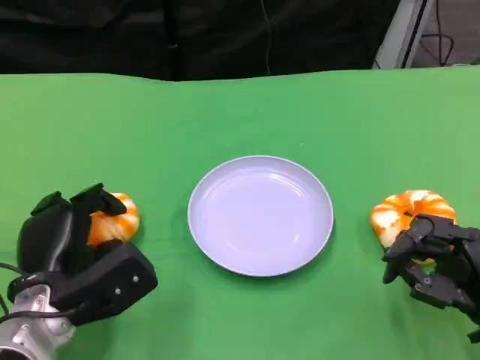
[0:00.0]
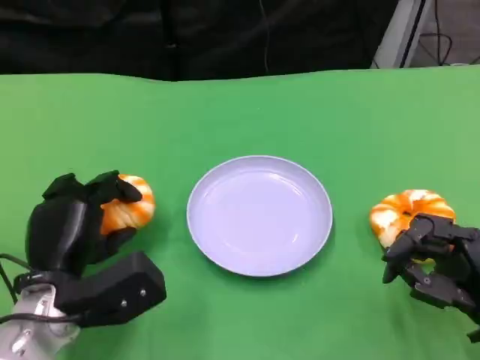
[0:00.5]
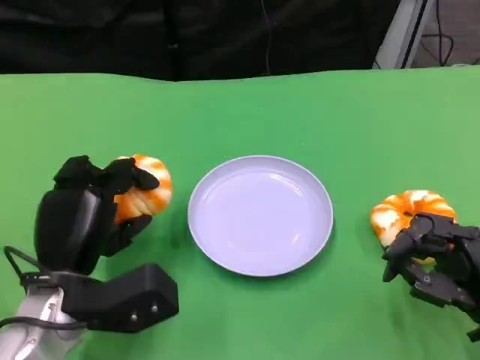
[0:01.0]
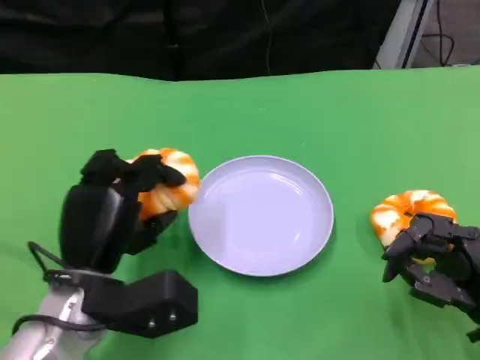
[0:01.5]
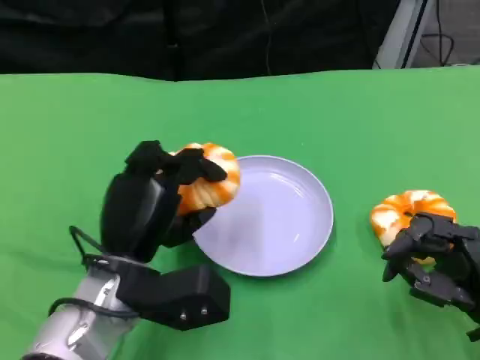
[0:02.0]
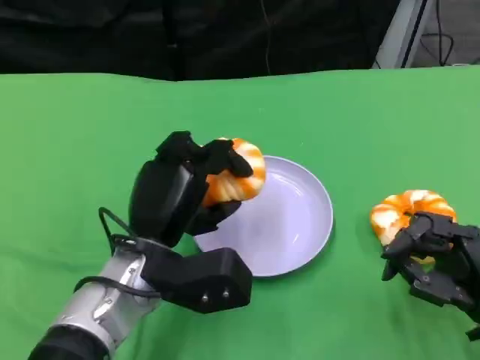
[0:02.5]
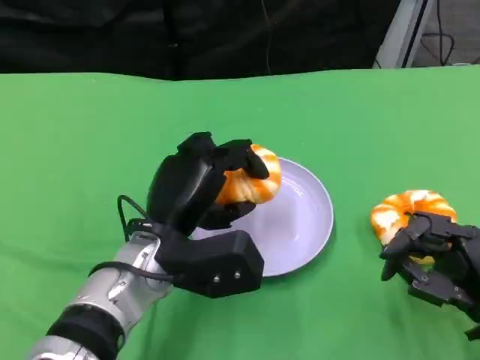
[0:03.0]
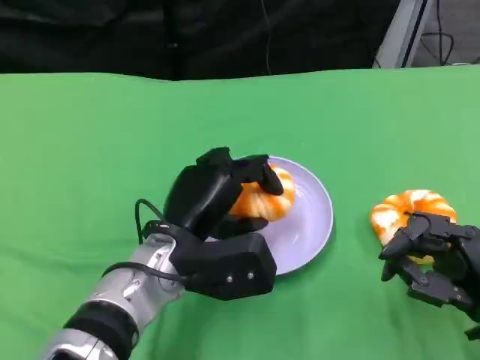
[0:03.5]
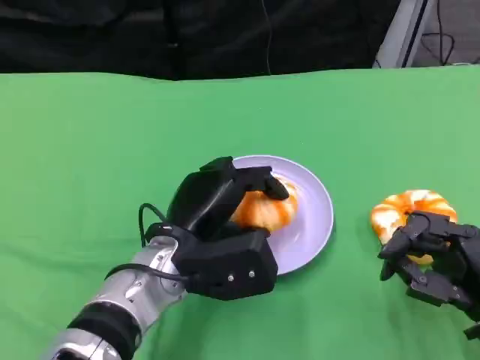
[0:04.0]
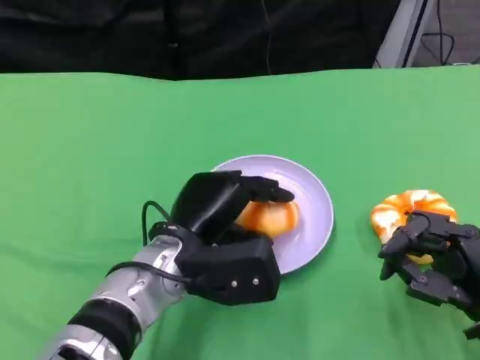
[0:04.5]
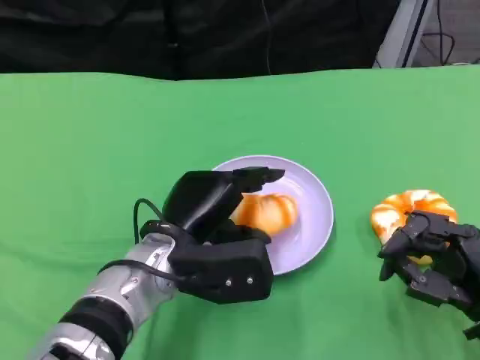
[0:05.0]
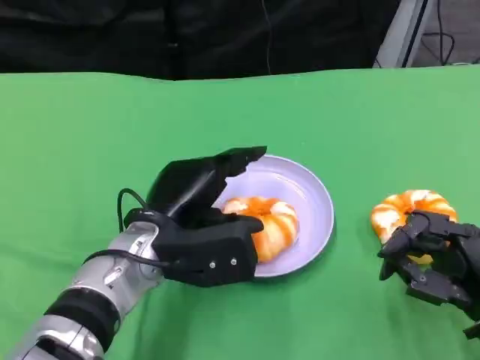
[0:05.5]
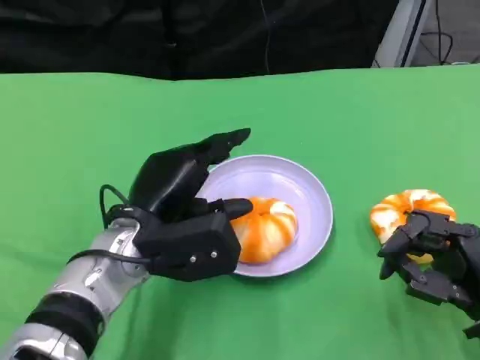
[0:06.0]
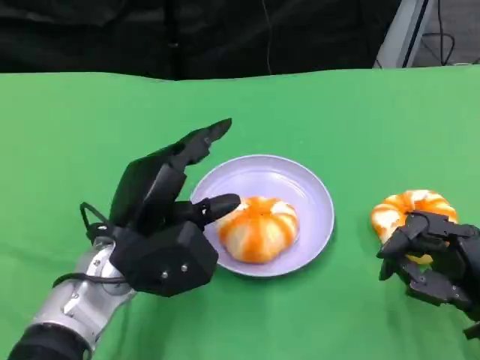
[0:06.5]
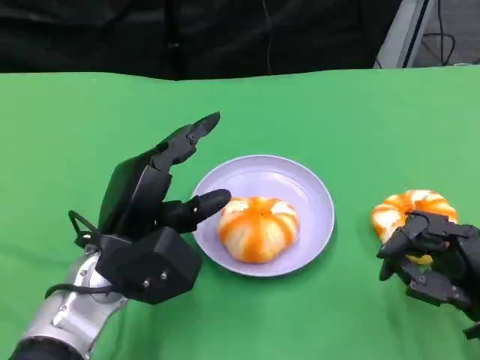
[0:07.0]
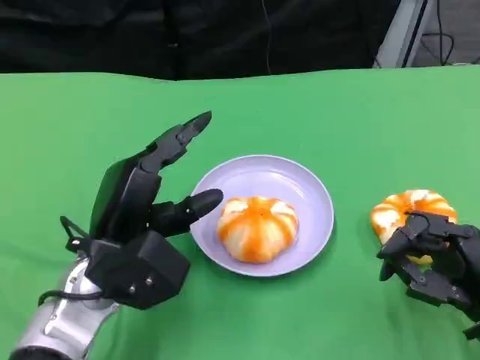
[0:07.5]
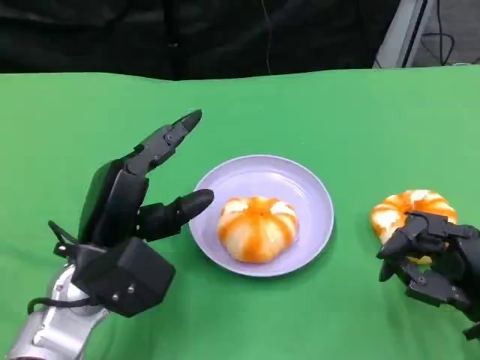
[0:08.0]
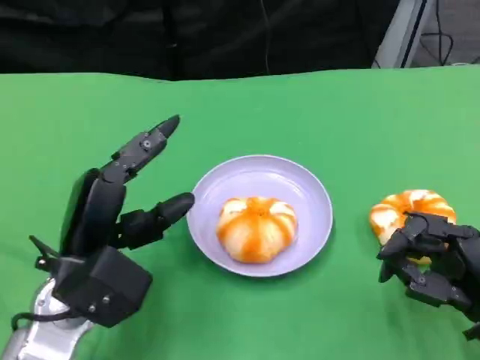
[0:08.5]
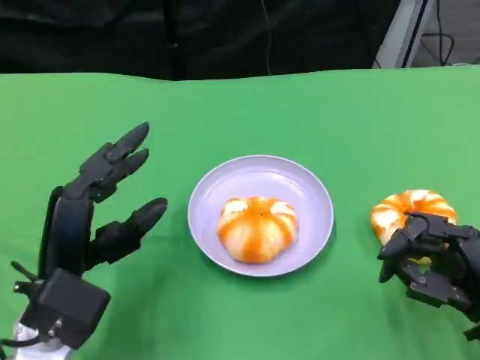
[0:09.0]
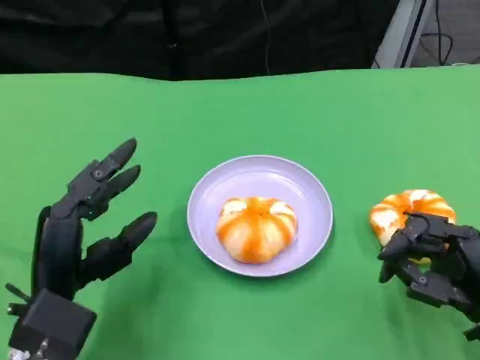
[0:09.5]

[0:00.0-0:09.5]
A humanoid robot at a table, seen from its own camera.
Task of the whole recording: Grasp the bread from the table and place it into the plate.
0:00.0 to 0:02.0: The left hand shifts roughly 5 cm to the right.
0:02.0 to 0:04.0: The left hand shifts by some 5 cm.
0:04.0 to 0:05.5: There are only small adjustments of the hands.
0:05.5 to 0:07.5: The left hand changes place by about 5 cm.
0:07.5 to 0:09.5: The left hand ends up about 5 cm from where it was.

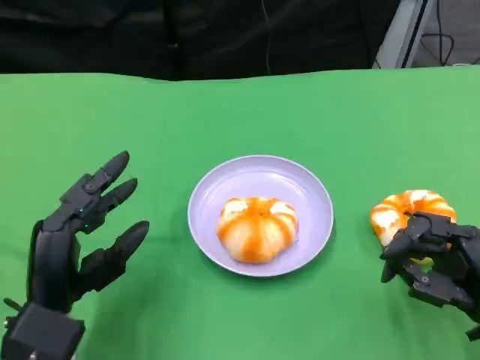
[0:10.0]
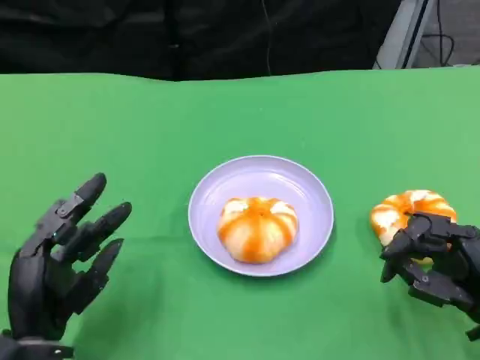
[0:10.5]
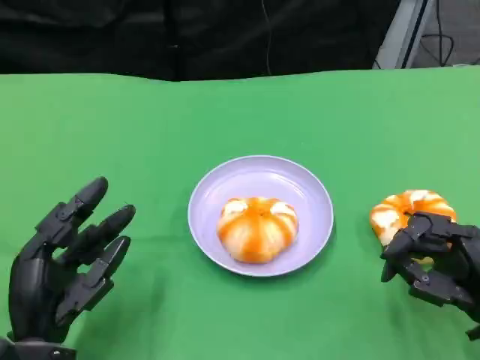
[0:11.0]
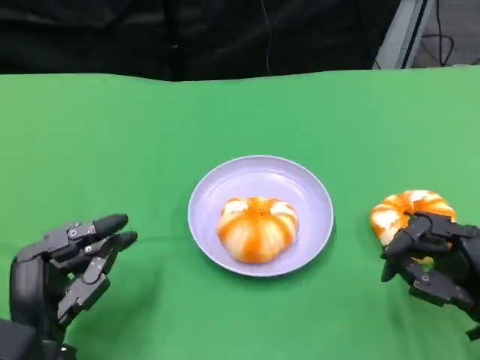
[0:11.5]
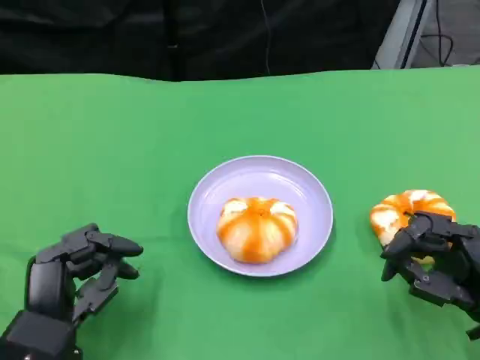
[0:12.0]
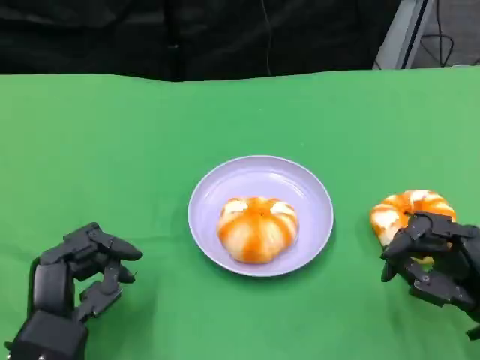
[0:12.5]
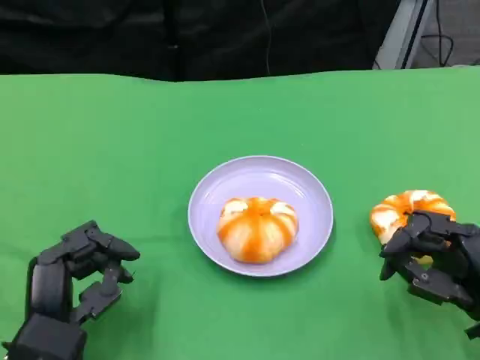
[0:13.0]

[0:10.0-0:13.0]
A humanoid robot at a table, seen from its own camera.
Task of the whole recording: Grasp the bread from the table and place it into the plate.
0:11.5 to 0:13.0: The hands stay close to where they were, moving slightly.

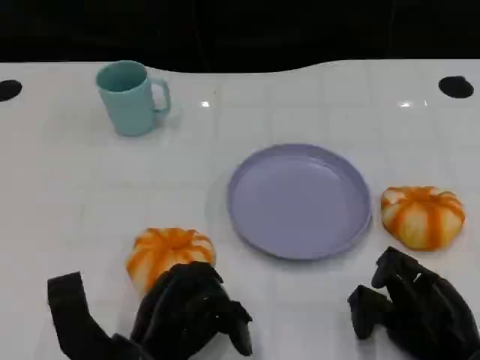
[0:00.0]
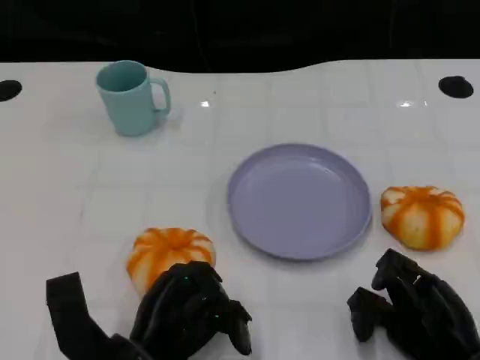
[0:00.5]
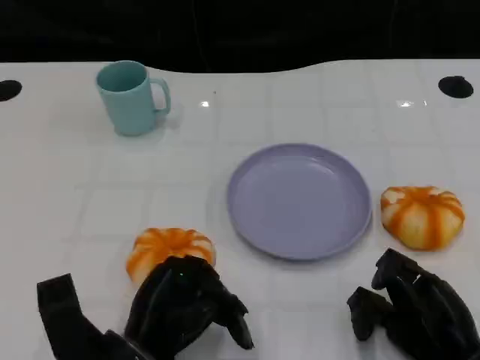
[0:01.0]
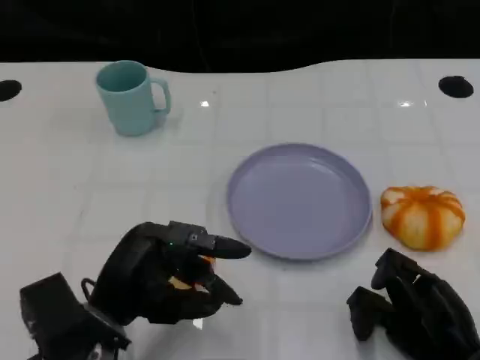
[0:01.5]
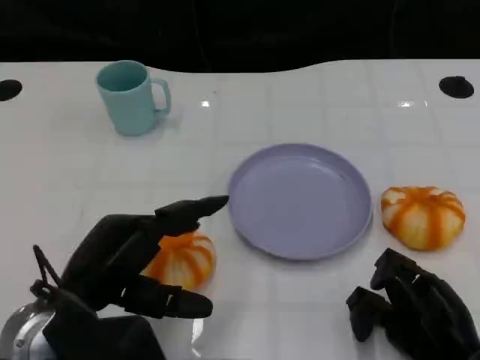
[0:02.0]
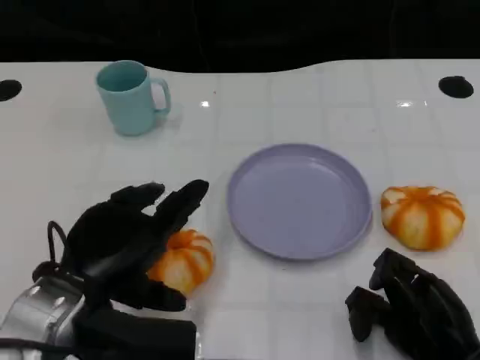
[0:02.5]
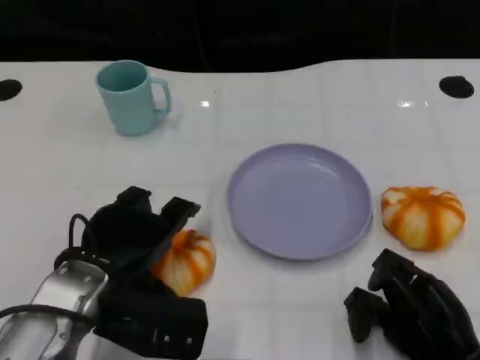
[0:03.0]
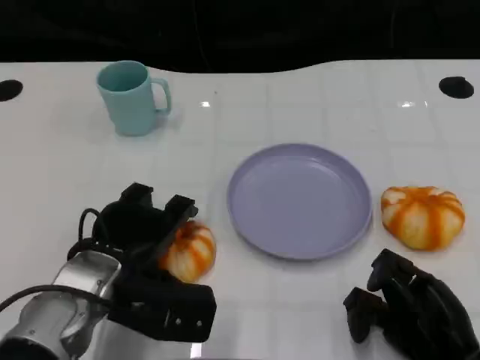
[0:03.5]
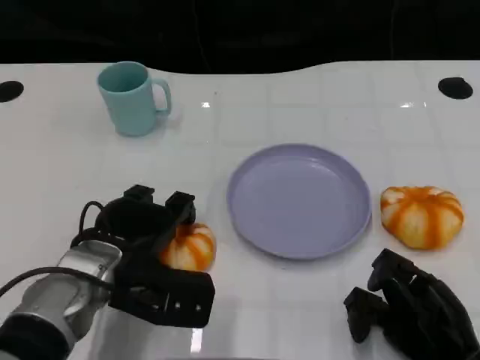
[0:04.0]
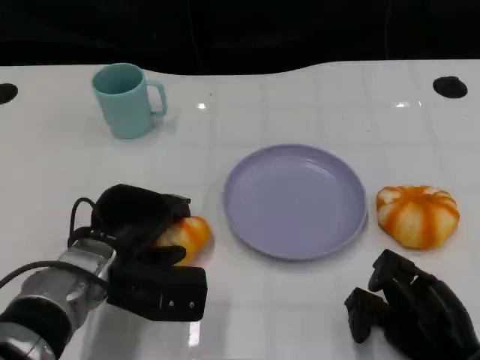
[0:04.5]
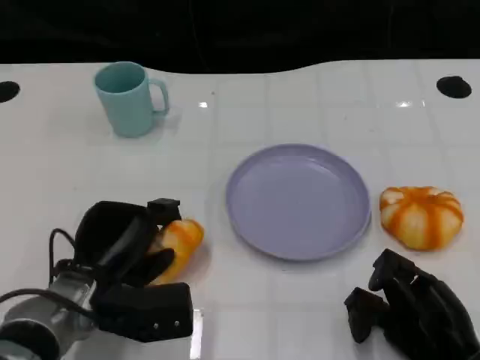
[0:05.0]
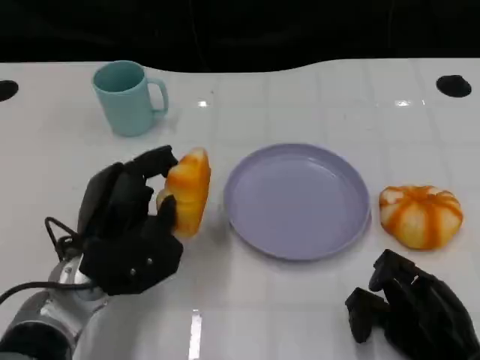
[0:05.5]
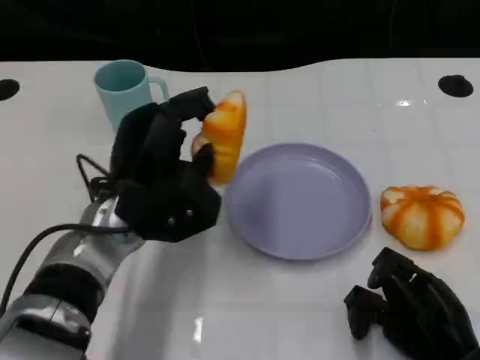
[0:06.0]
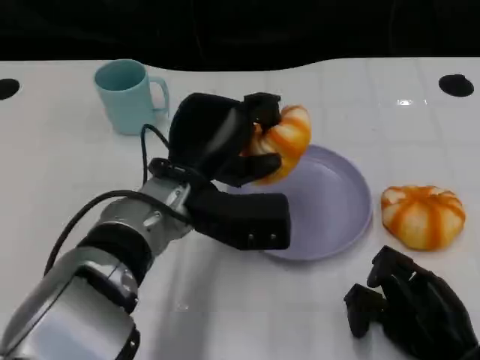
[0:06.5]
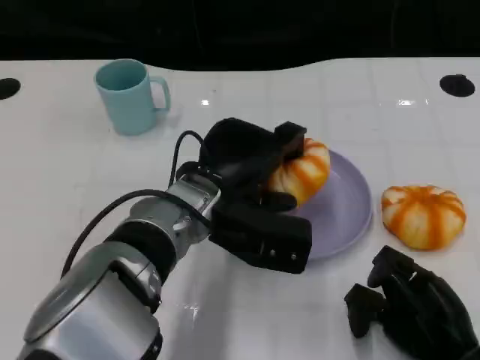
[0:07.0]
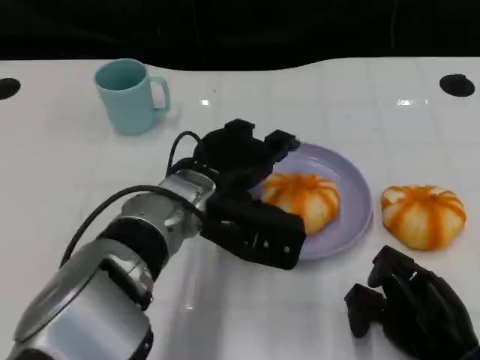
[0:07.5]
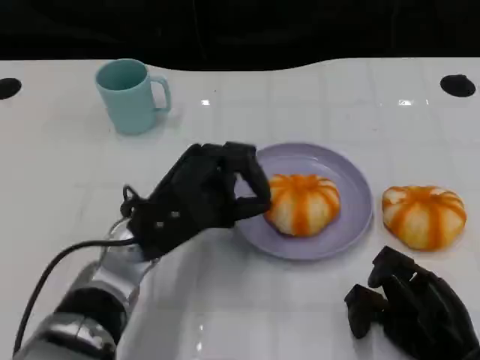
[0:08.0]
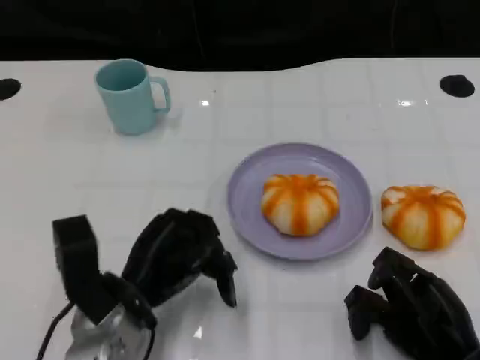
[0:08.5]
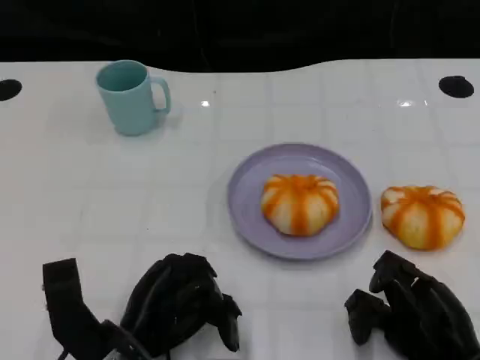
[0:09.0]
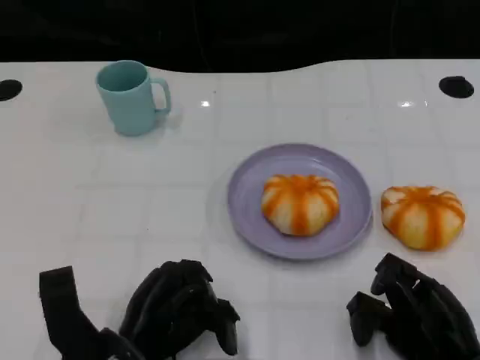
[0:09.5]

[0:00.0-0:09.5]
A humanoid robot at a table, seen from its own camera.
Task of the whole recording: Grasp the bread from the table and place it into the plate.
0:00.0 to 0:02.0: The left hand goes some 10 cm upward and to the left.
0:02.0 to 0:04.0: The left hand shifts roughly 5 cm forward.
0:05.5 to 0:07.5: The left hand travels to the right by roughly 10 cm.
0:07.5 to 0:09.5: The left hand shifts roughly 15 cm backward, downward and to the left.

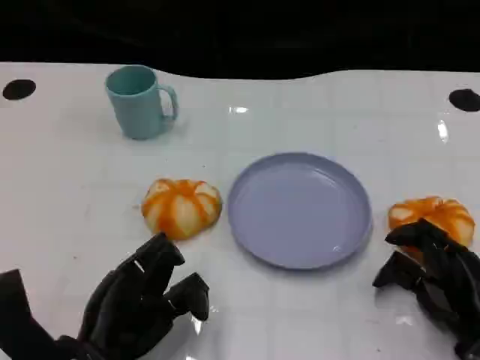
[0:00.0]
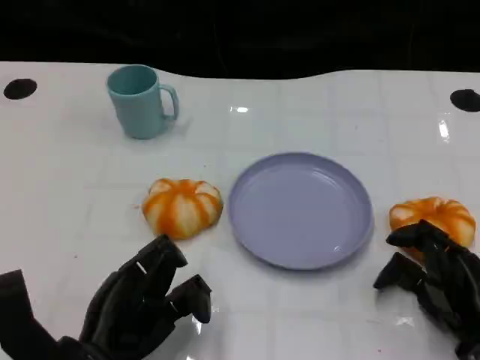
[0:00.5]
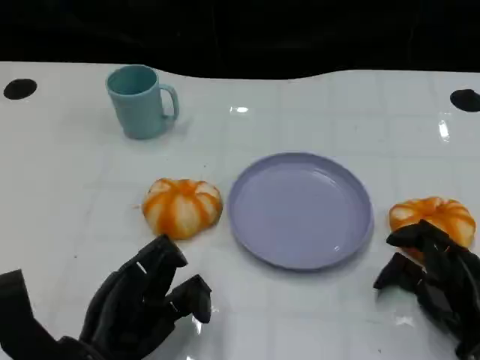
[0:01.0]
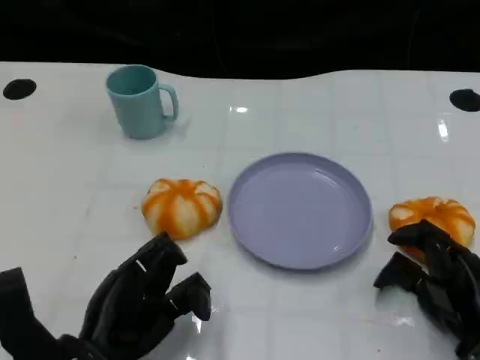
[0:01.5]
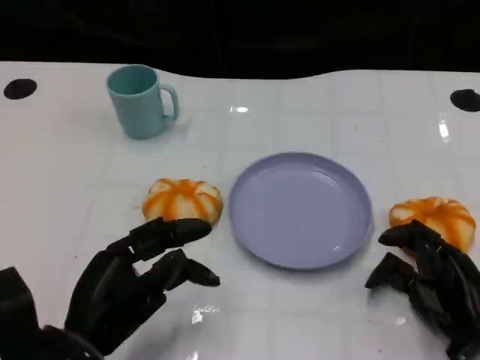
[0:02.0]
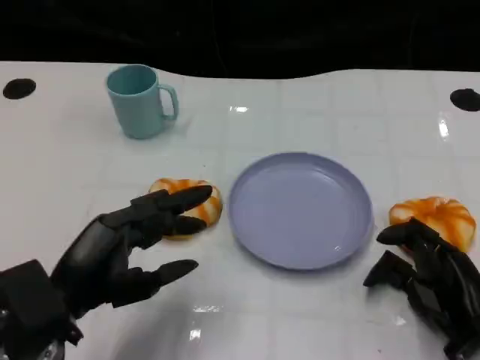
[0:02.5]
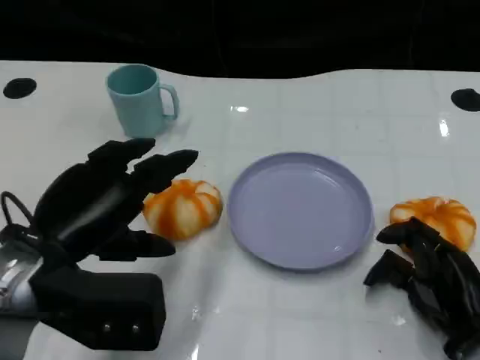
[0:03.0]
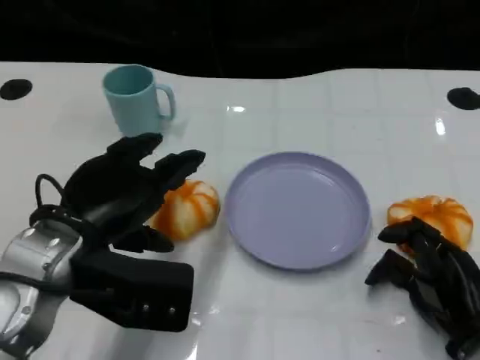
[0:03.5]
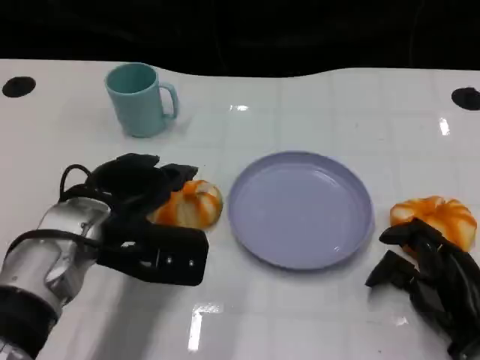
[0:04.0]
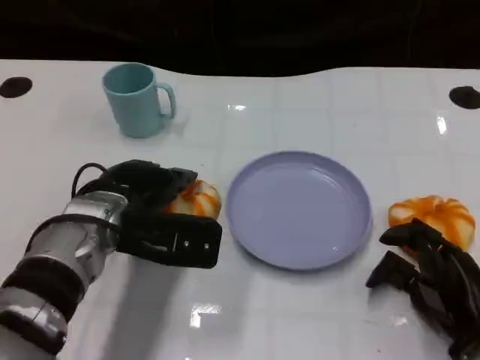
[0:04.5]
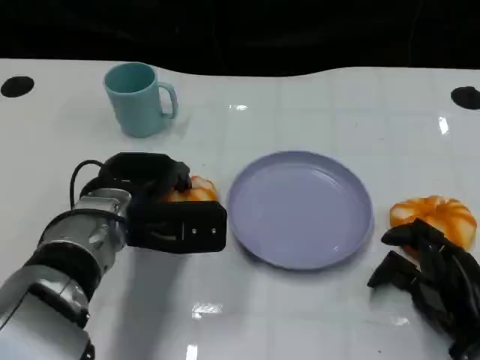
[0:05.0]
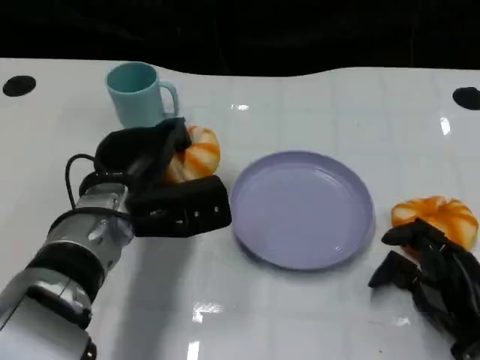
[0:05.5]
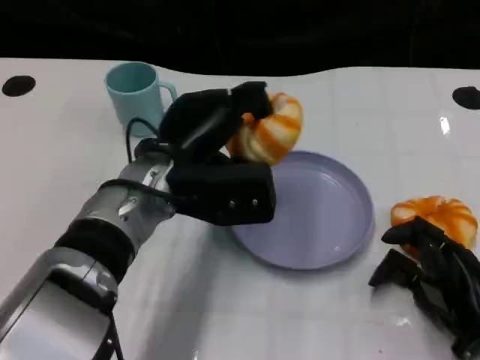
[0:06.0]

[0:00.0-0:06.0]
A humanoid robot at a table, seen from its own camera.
Task of the whole recording: Grasp the bread from the table and place it into the plate.
0:02.0 to 0:04.0: The left hand shifts about 10 cm forward and upward.
0:04.0 to 0:06.0: The left hand moves to the right, approximately 10 cm.
